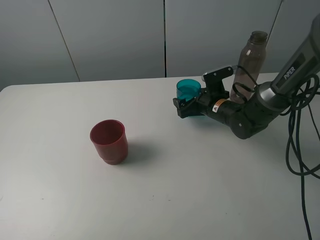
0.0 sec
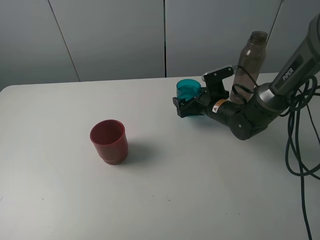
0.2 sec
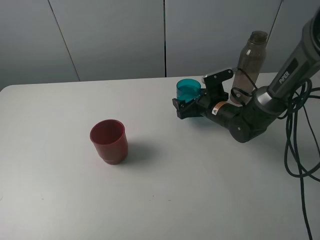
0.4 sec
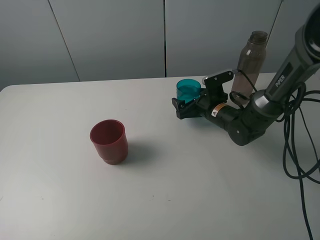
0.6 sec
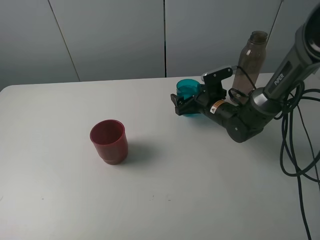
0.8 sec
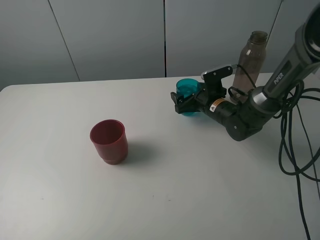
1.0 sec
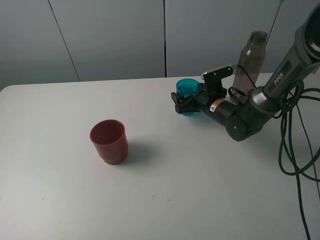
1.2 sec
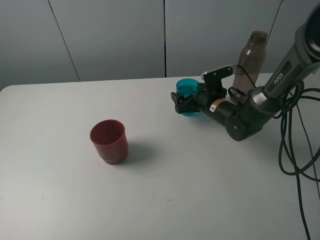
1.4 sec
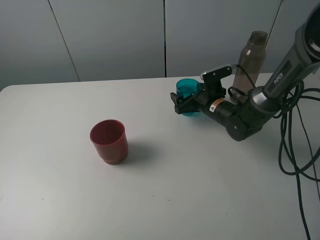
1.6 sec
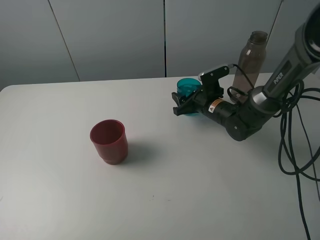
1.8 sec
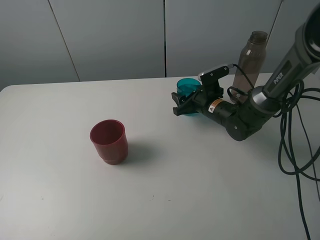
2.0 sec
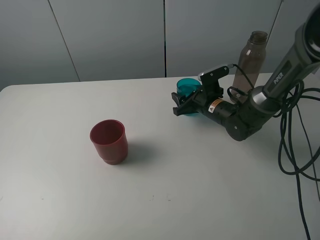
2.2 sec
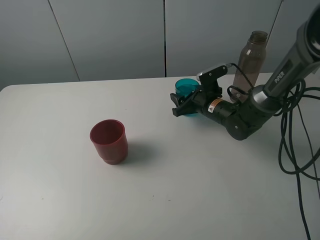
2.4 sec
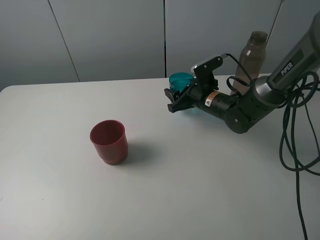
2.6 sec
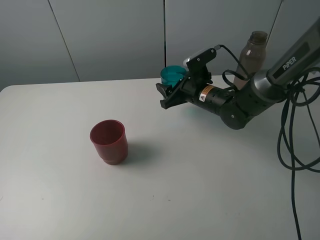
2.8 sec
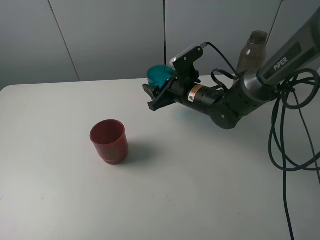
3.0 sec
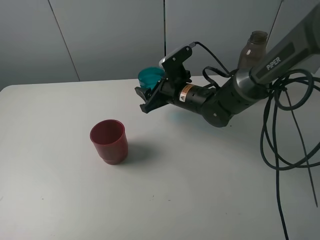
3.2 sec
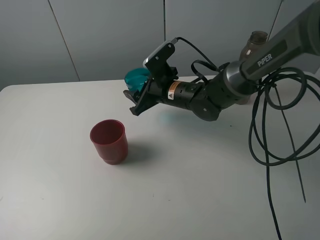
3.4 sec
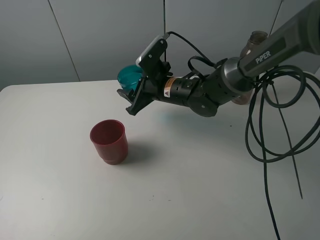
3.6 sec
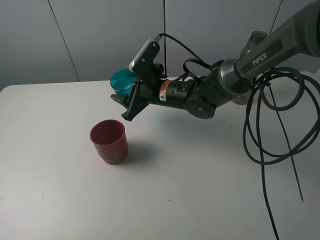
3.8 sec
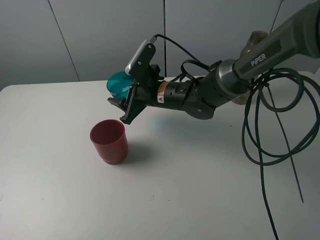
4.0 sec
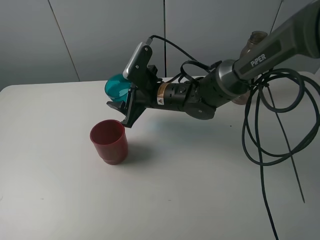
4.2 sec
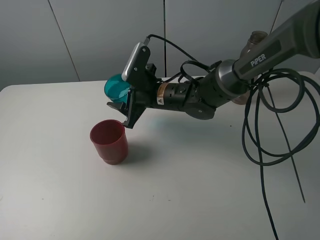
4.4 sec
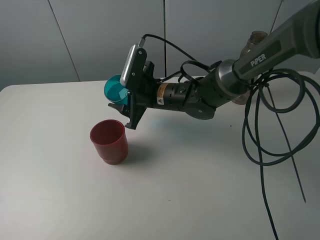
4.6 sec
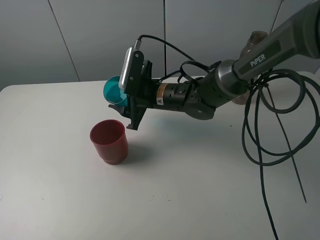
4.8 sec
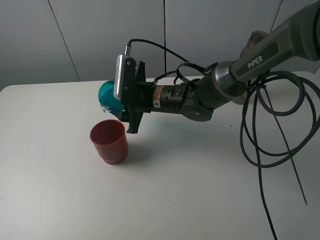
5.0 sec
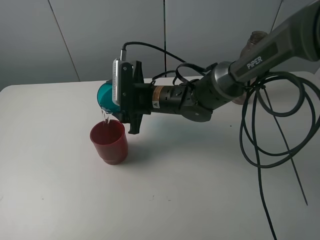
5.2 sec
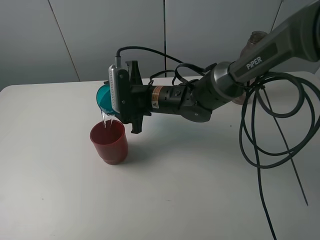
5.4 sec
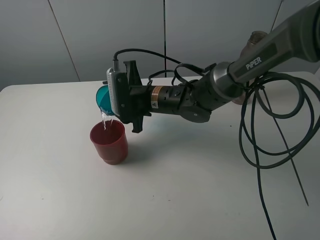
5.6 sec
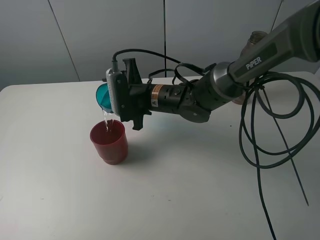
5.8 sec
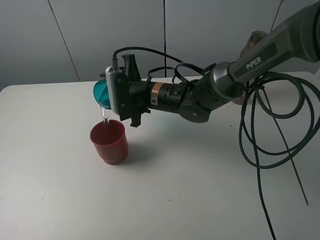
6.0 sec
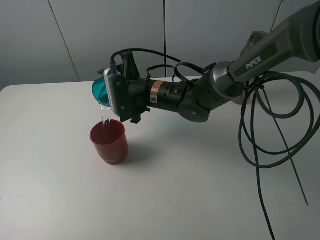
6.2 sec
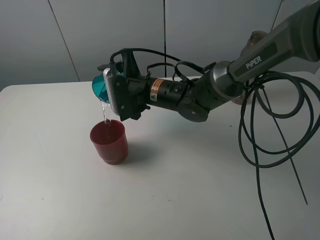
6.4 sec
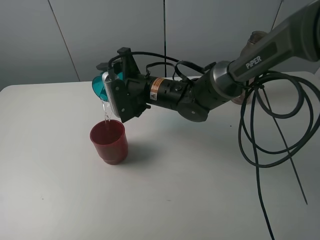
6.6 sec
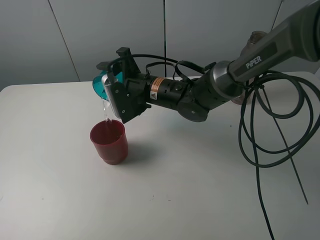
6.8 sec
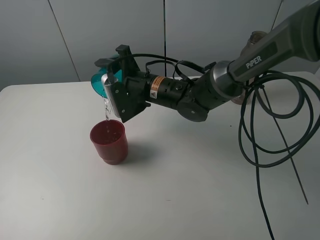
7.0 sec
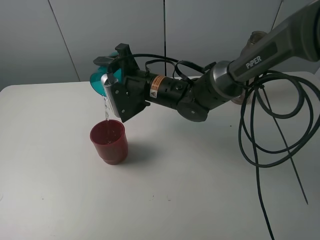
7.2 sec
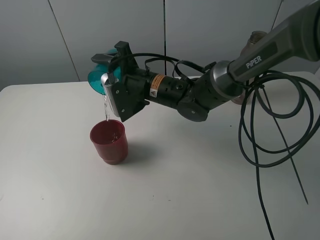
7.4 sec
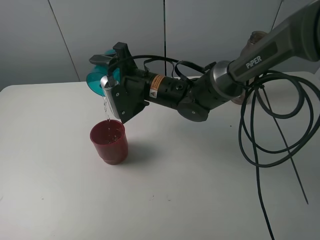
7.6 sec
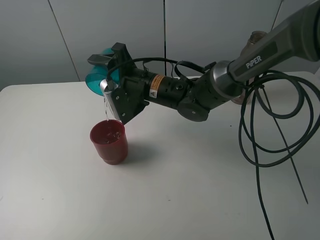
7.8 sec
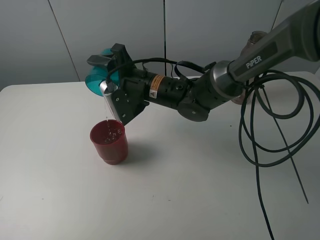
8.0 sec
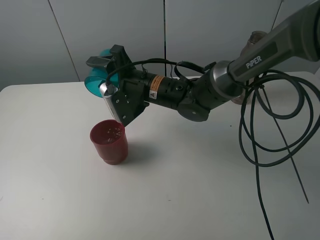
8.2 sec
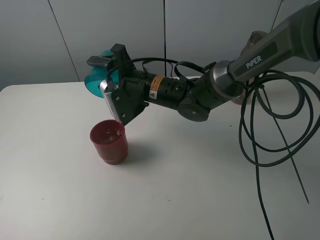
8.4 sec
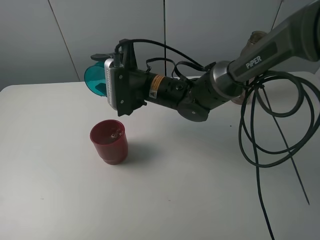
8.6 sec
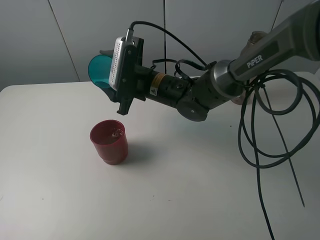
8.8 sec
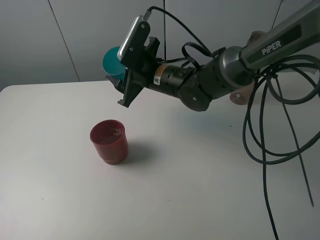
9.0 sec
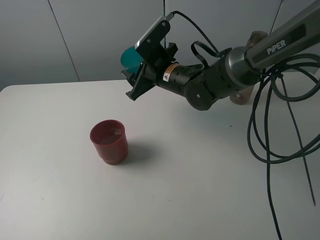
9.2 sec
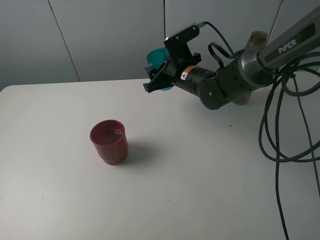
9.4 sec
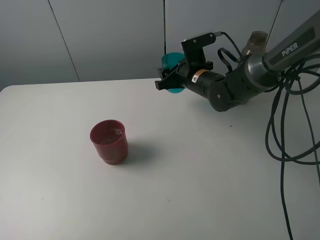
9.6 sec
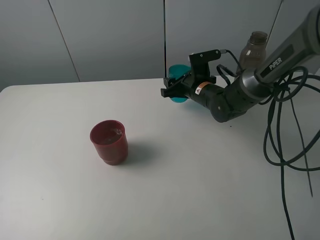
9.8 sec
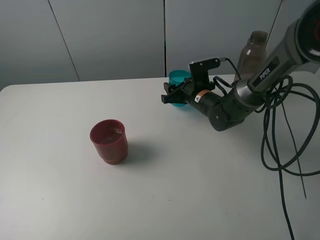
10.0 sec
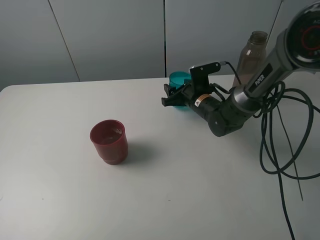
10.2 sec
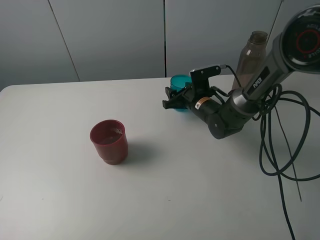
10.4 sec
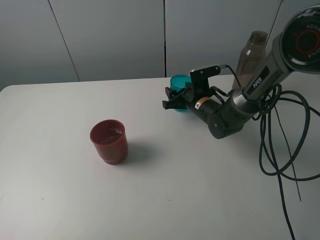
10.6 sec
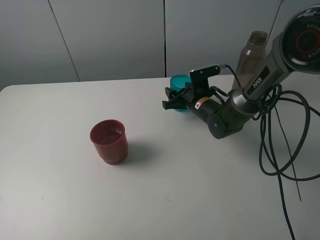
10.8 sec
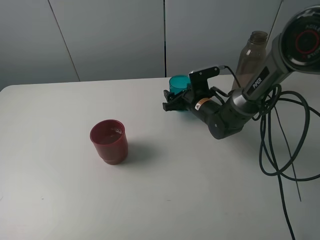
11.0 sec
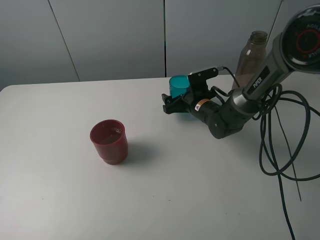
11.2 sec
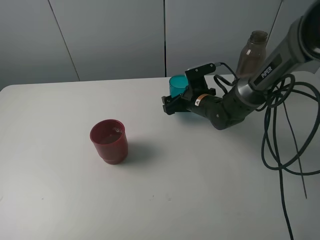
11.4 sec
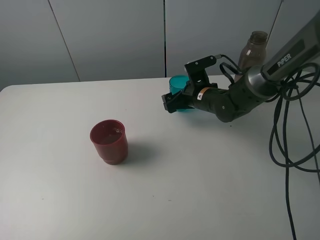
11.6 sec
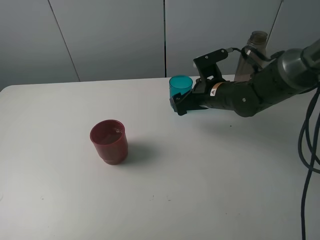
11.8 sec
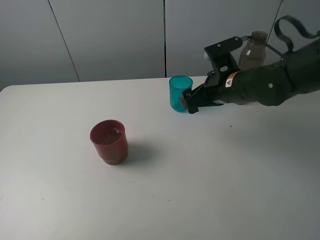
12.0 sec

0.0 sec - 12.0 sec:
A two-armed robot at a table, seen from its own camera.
Task of the whole recording: pick up the bottle and pour water into the cup, then pick up the cup containing water and pour it into another cup.
Step, 0.0 sec - 2.0 sec: Grasp the blue cup with the right gripper.
Step, 2.2 sec - 8.4 sec: Pour water from blue cup to red cup with the right gripper.
Step, 8.6 sec - 11.2 sec: Place the blue cup with the right gripper.
0.0 sec - 1.6 sec: There are only small adjustments of the grippers.
1.6 sec - 3.0 sec: The right gripper goes roughly 10 cm to the left and upward, and closes its fingers.
3.0 sec - 4.4 sec: The right gripper goes roughly 5 cm to the left.
9.0 sec - 10.4 sec: The right gripper moves downward and to the right, roughly 15 cm.
10.4 sec - 12.0 sec: The right gripper goes roughly 15 cm upward and backward, and opens up.

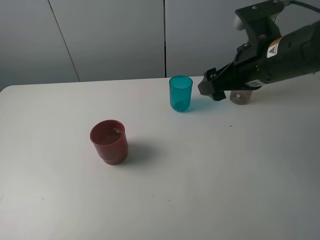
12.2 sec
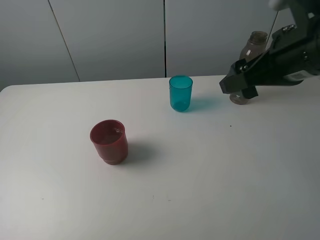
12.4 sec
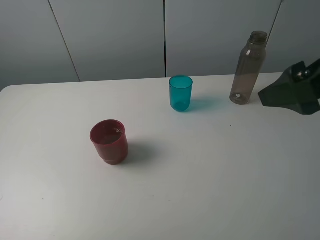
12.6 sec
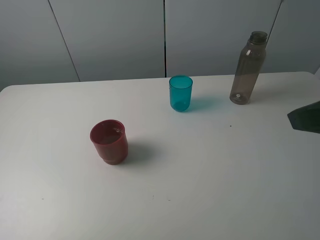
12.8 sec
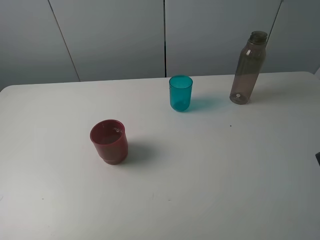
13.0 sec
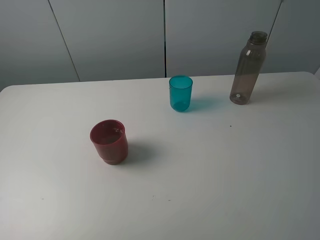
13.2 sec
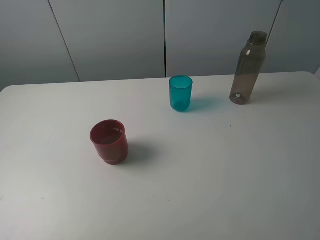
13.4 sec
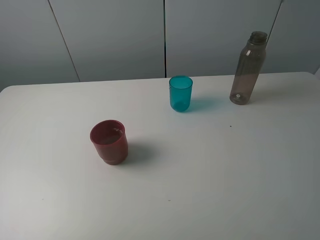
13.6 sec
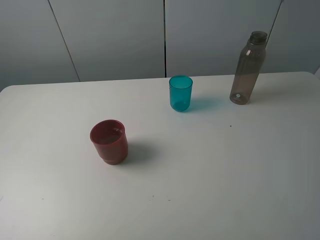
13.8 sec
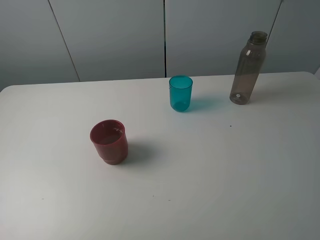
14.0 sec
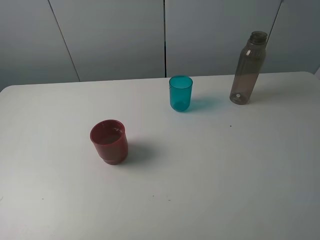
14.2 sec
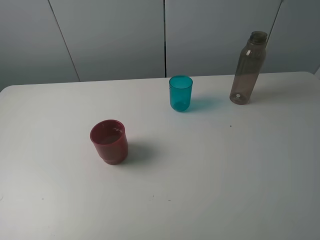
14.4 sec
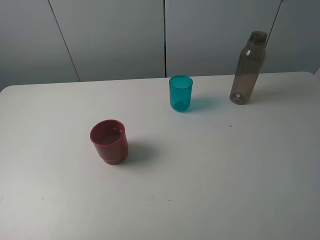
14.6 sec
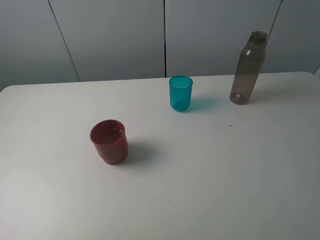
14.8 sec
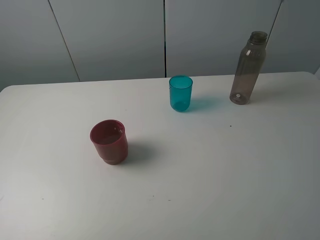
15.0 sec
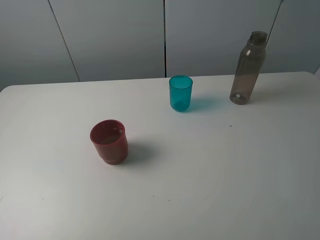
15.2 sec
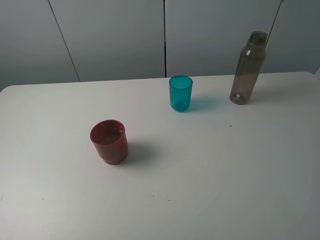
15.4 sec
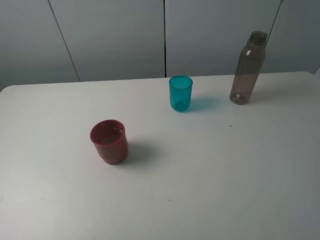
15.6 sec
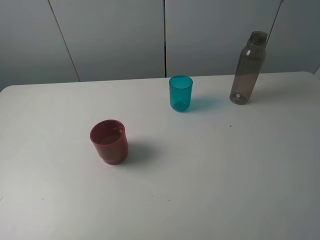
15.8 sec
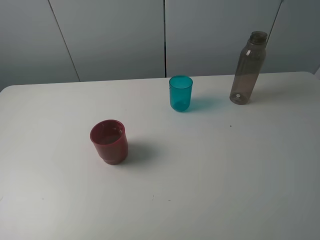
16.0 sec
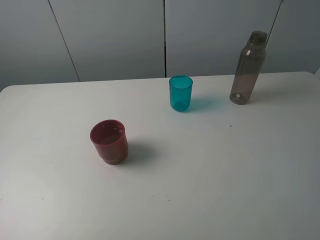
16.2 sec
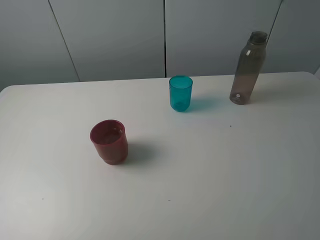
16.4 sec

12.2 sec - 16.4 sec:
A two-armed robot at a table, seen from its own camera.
Task of the whole recording: pick up the bottle and pour water into the cup, then pick up the cup containing water and pour it into another cup.
12.2 sec - 13.6 sec: The right gripper goes roughly 25 cm backward and to the right.
15.0 sec - 16.4 sec: Both grippers stay put.
